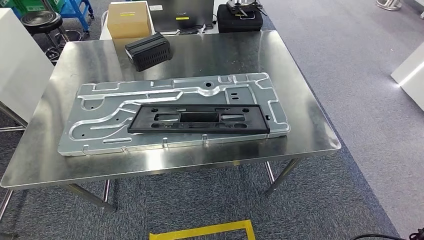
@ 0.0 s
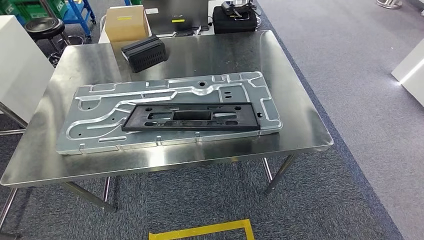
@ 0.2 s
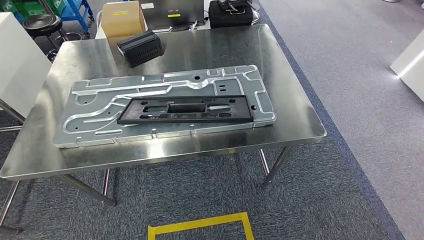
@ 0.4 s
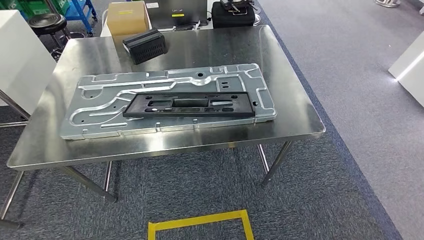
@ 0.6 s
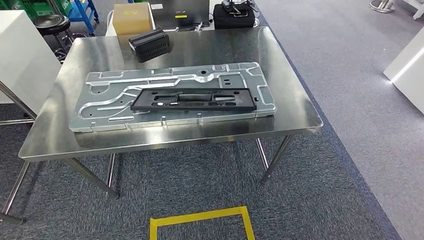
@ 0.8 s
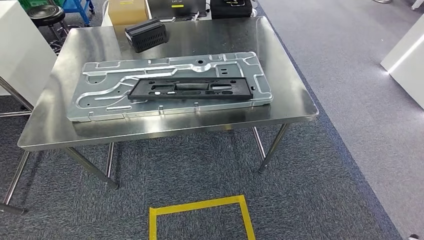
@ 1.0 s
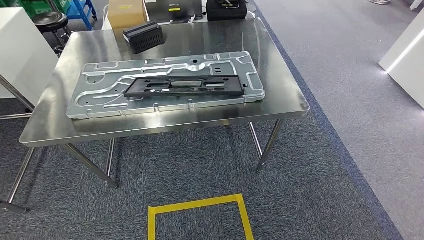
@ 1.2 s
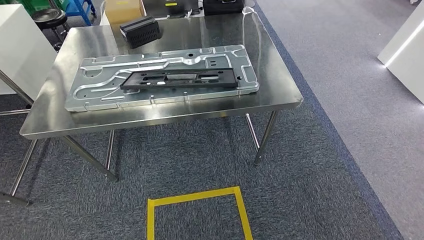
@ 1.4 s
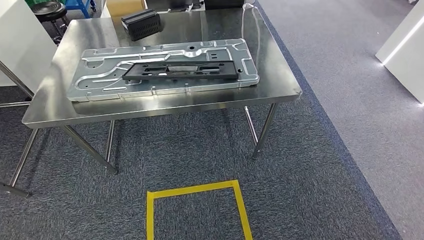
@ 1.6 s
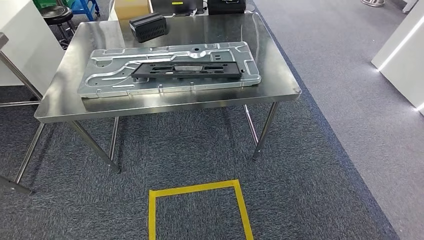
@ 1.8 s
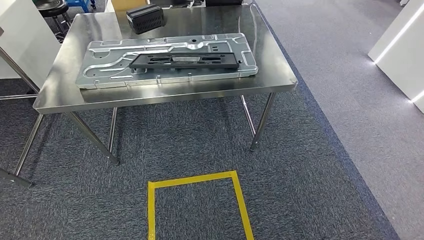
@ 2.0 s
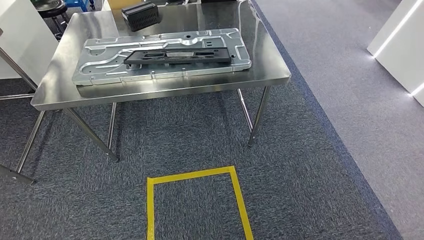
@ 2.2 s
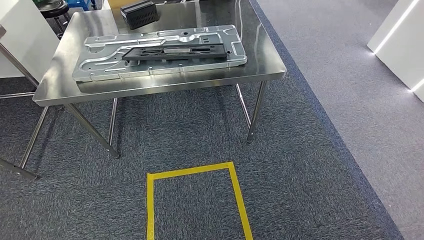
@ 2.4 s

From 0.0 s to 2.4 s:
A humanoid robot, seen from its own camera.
Step, from 0.0 s to 2.4 s: Move to the initial position of the shelf.
